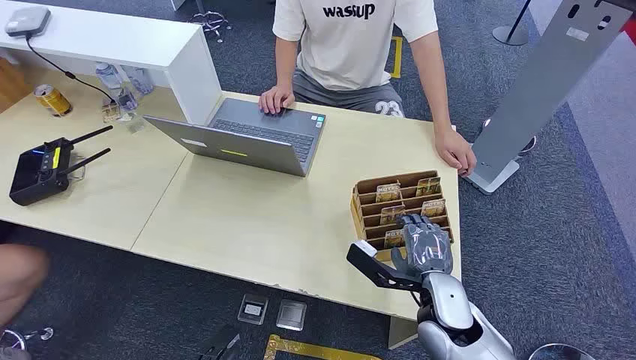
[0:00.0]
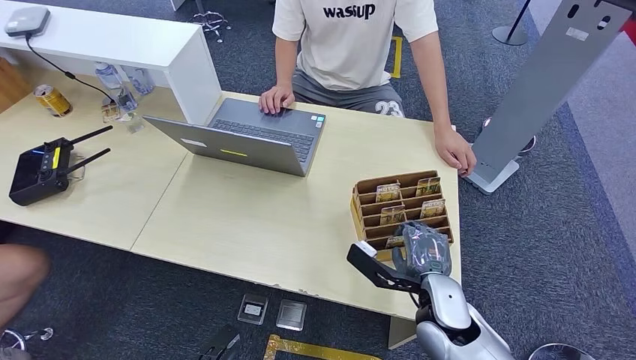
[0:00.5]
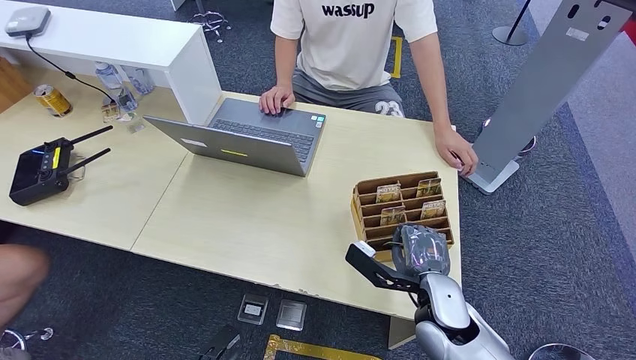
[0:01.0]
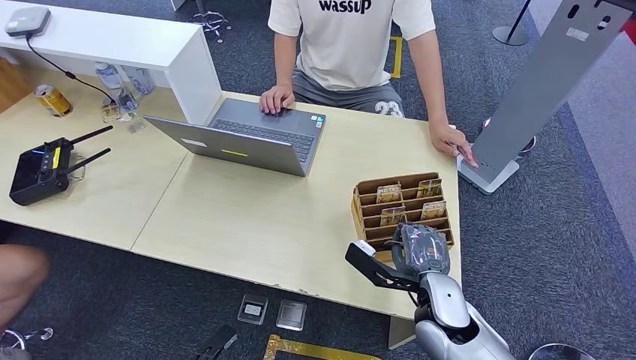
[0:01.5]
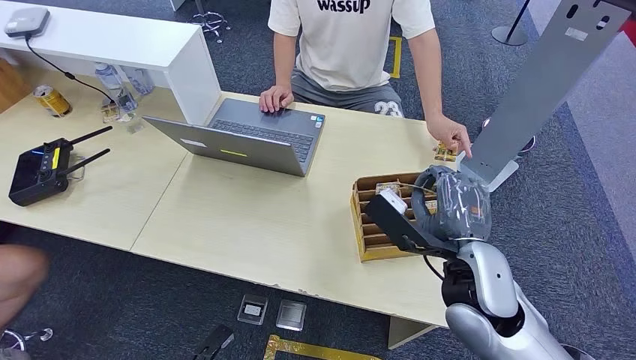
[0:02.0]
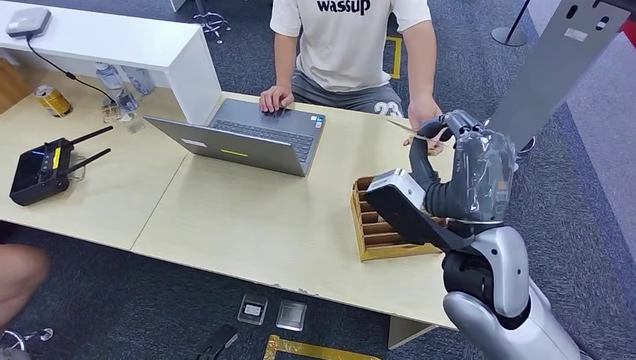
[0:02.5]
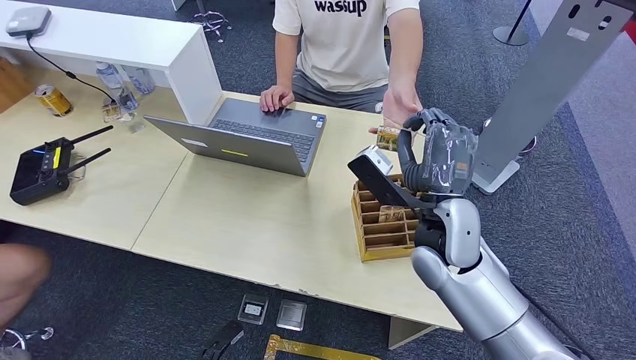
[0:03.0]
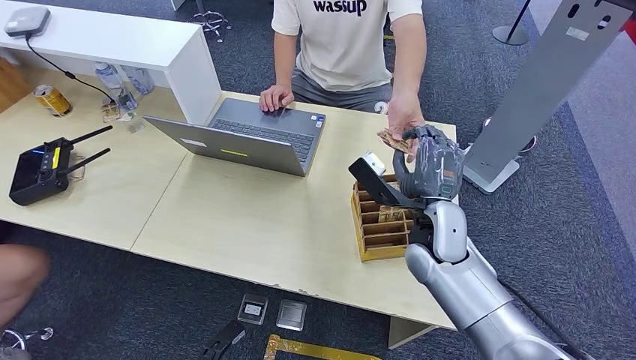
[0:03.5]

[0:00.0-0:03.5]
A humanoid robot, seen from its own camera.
Step, 0:00.0 to 0:02.0: Pick up the key card from the card box.
Step, 0:03.0 to 0:03.5: Hand the key card to the target.
0:02.0 to 0:03.5: The right hand travels forward by about 5 cm, and travels upward and back again, some 5 cm each way.

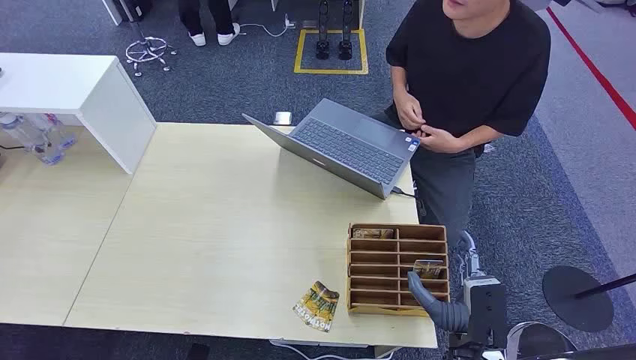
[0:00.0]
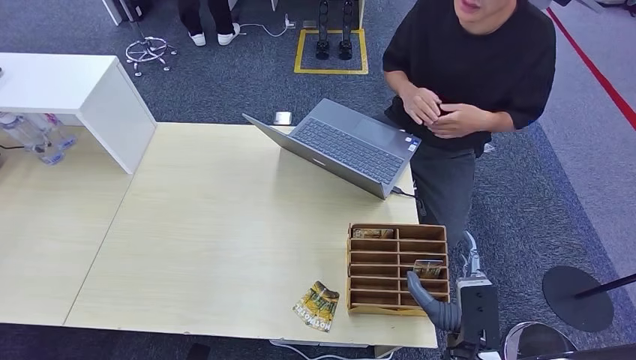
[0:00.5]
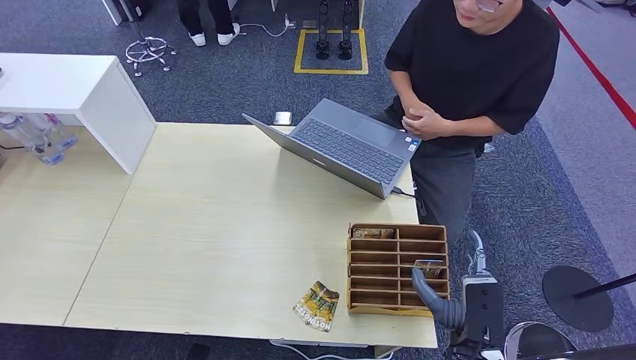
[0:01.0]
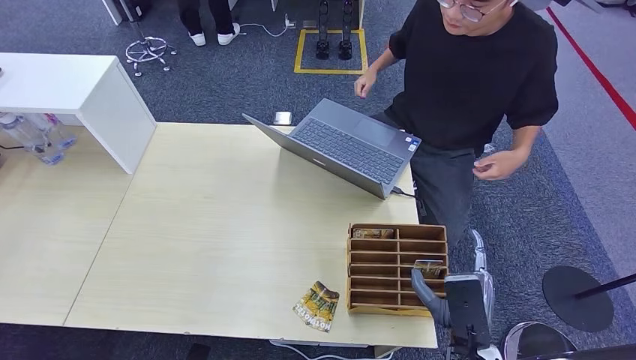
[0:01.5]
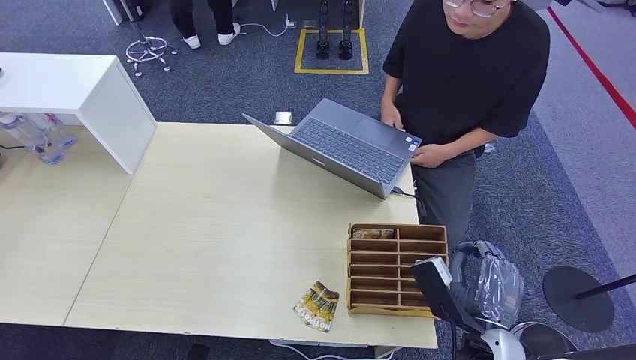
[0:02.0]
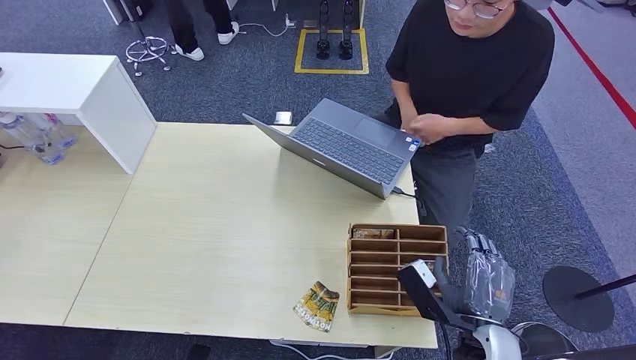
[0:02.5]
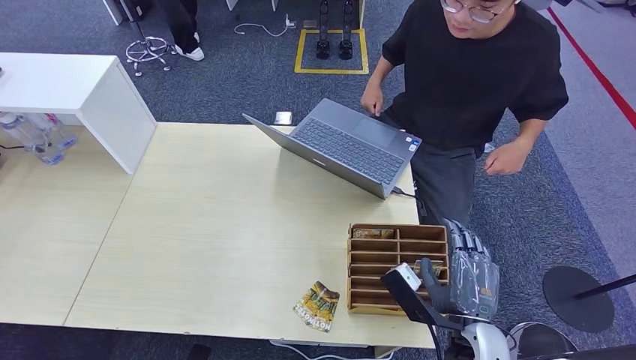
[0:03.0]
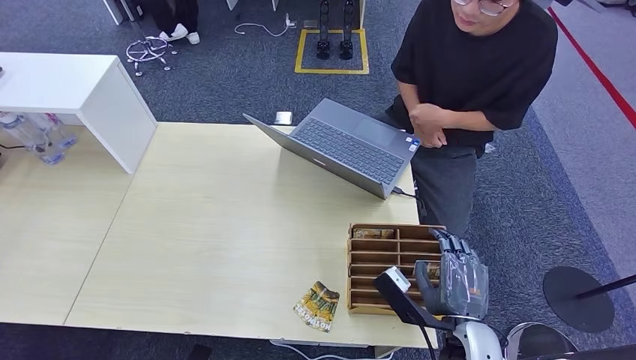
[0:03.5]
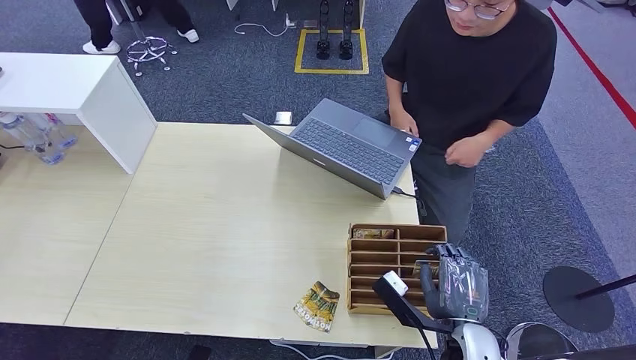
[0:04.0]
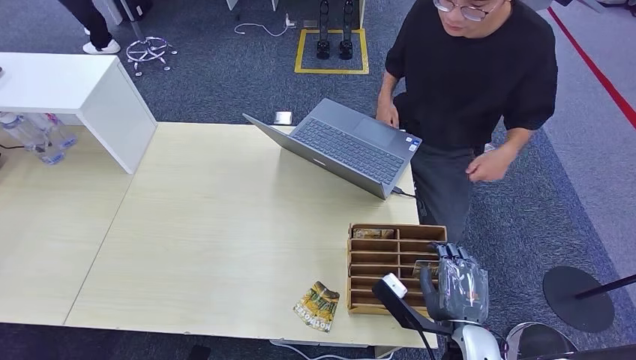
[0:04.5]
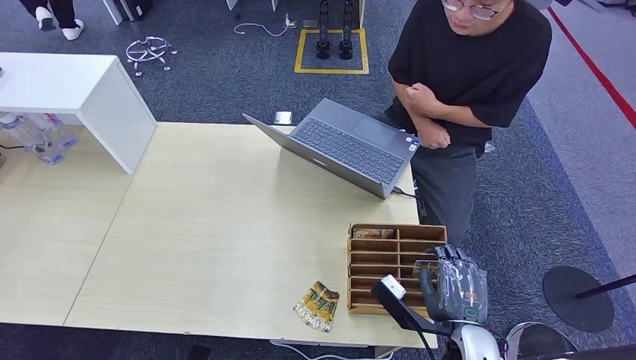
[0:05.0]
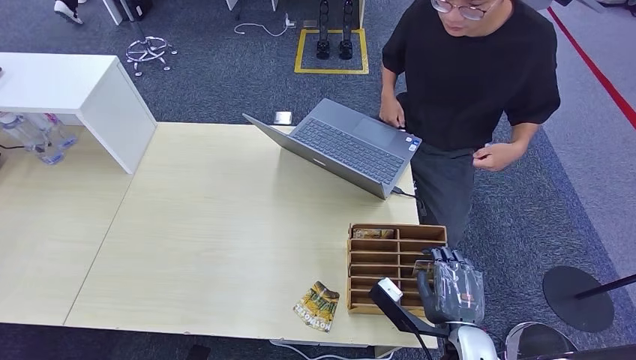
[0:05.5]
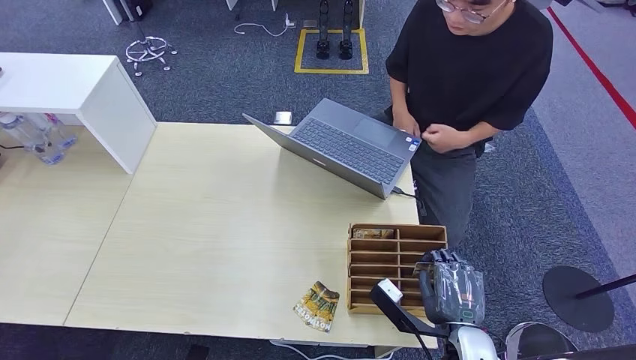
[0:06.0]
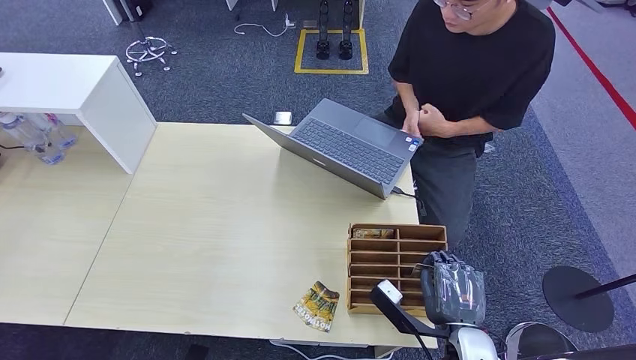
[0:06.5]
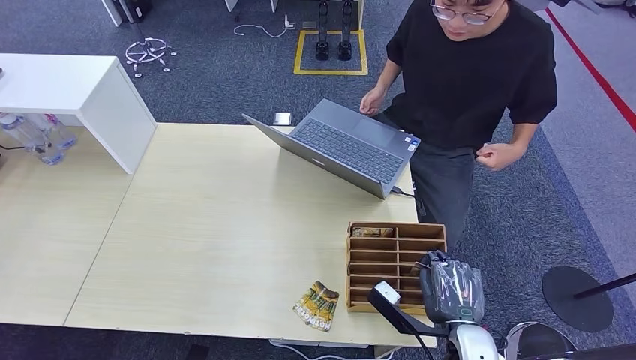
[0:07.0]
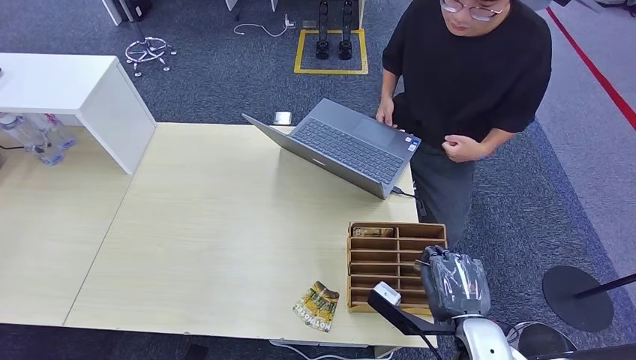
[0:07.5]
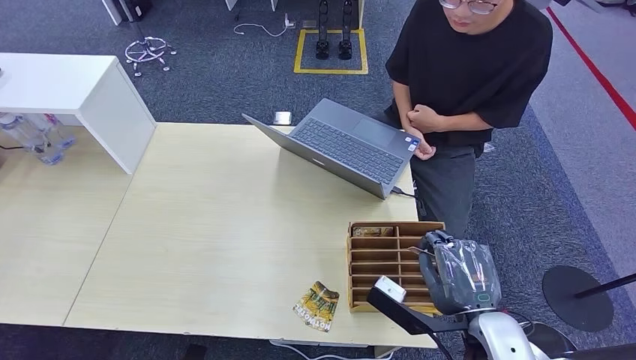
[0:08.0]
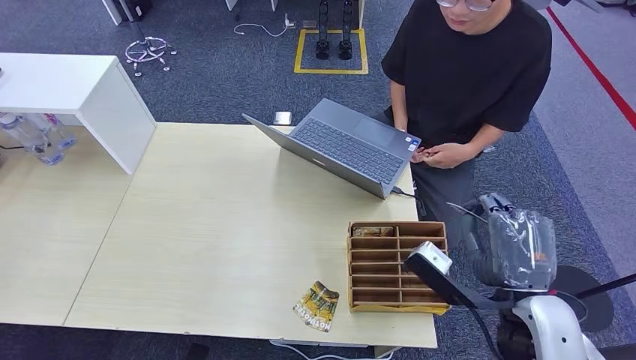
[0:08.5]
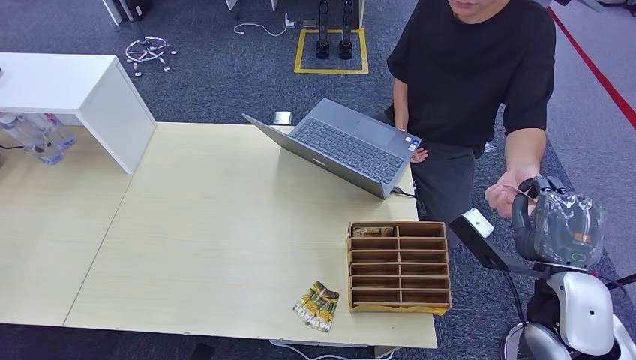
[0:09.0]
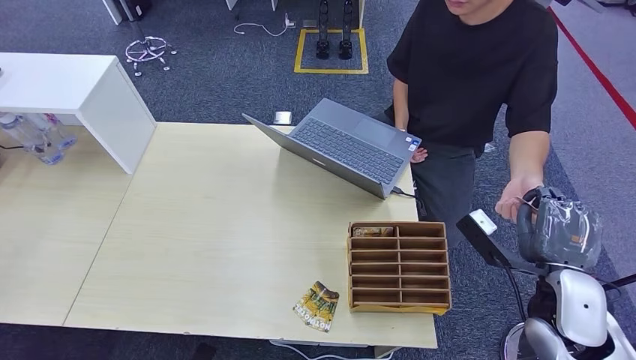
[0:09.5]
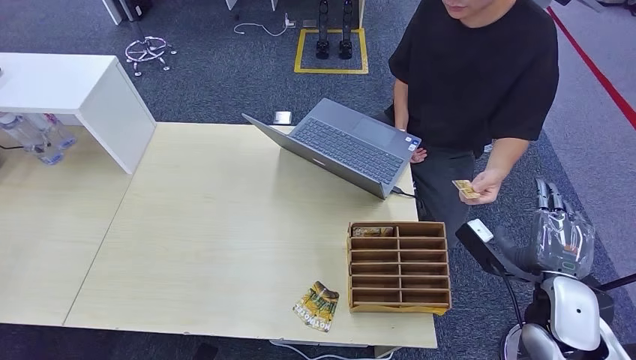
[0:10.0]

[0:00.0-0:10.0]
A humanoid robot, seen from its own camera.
Step, 0:00.0 to 0:08.0: Pick up the key card from the card box.
Step, 0:08.5 to 0:10.0: Hand the key card to the target.
0:04.0 to 0:06.0: There are only small adjustments of the hands.
0:06.0 to 0:08.0: The right hand heads upward, covering about 10 cm.
0:08.0 to 0:10.0: The right hand goes approximately 15 cm to the right and forward.
